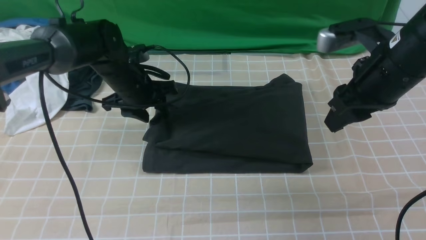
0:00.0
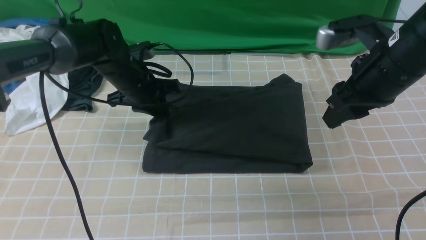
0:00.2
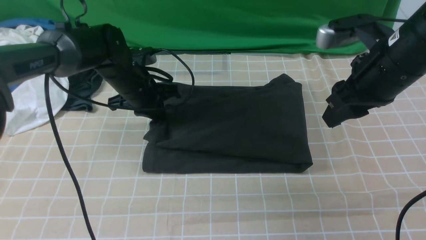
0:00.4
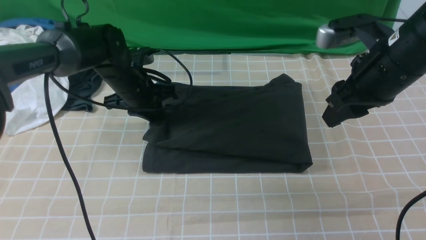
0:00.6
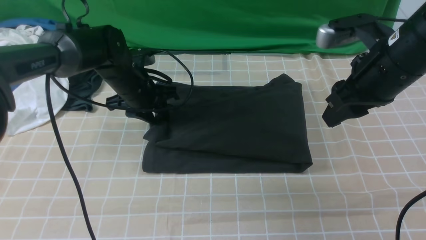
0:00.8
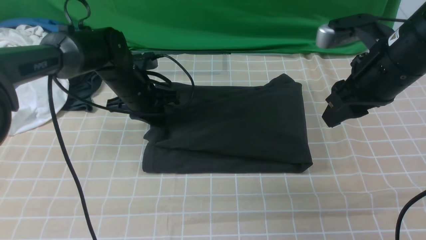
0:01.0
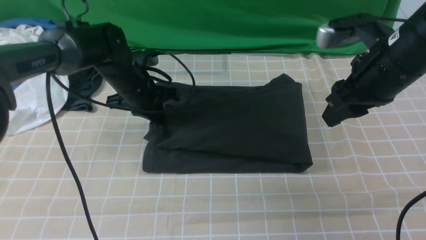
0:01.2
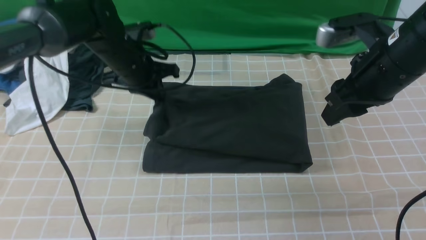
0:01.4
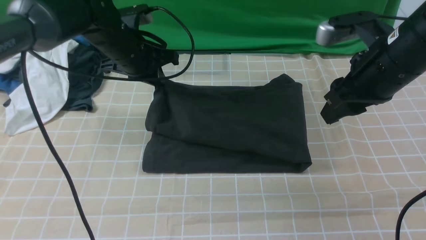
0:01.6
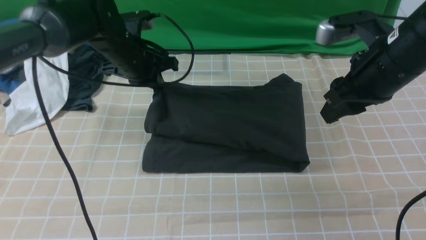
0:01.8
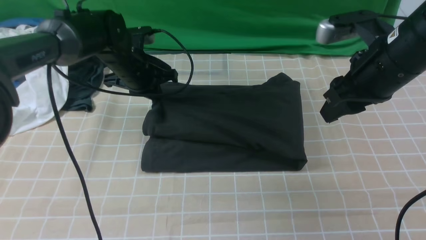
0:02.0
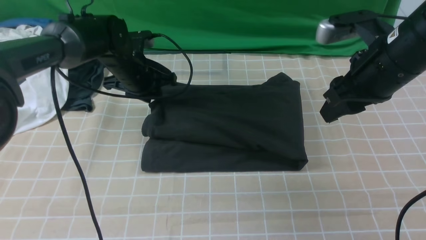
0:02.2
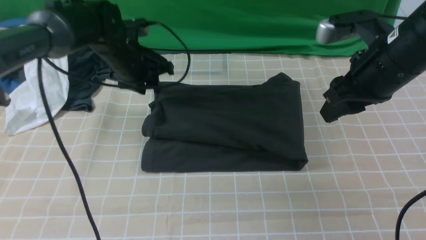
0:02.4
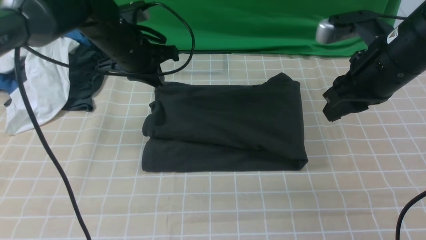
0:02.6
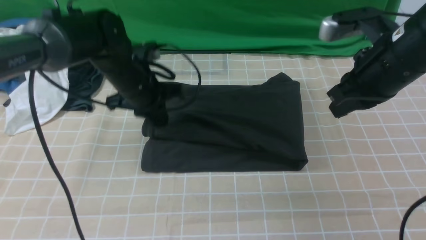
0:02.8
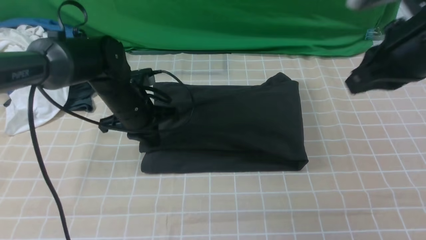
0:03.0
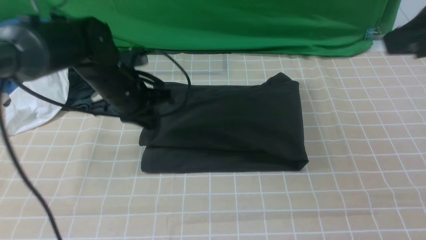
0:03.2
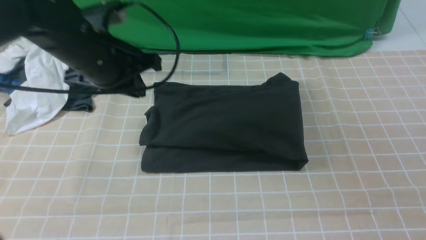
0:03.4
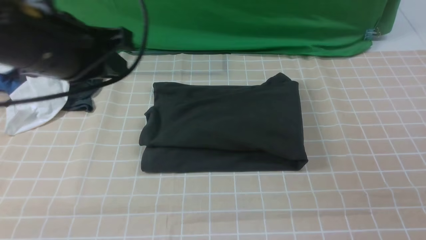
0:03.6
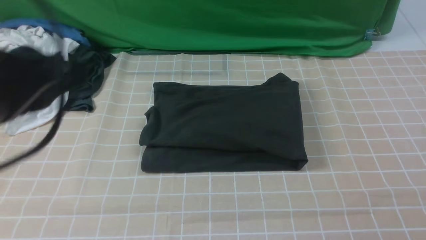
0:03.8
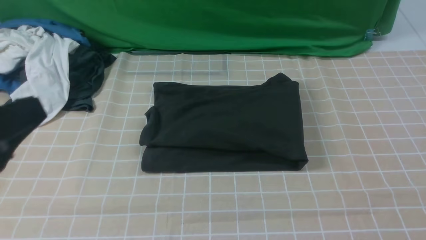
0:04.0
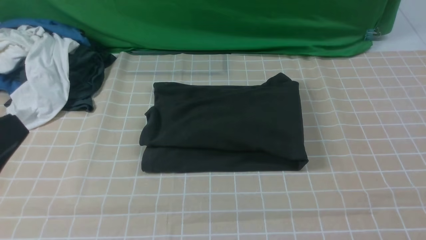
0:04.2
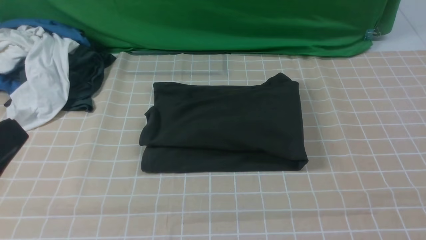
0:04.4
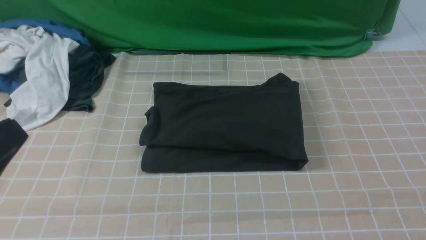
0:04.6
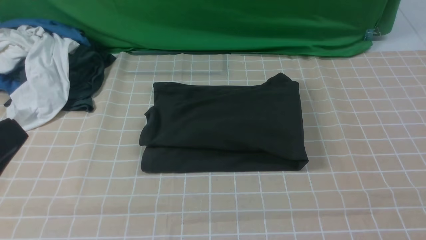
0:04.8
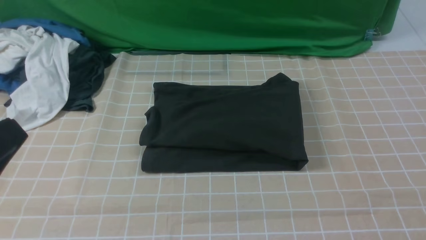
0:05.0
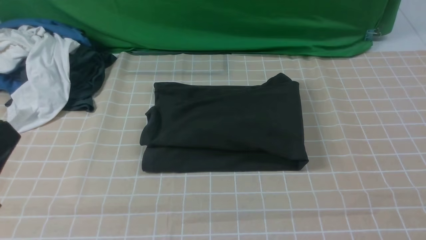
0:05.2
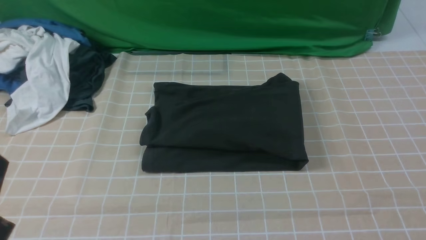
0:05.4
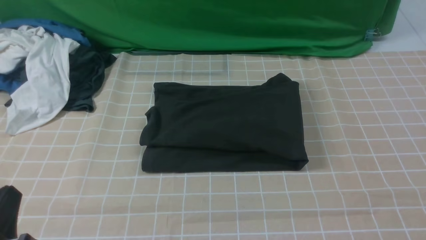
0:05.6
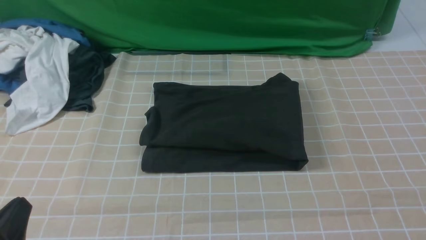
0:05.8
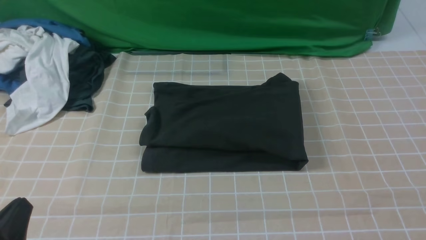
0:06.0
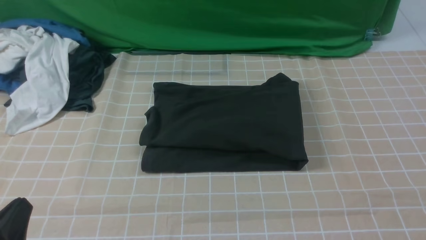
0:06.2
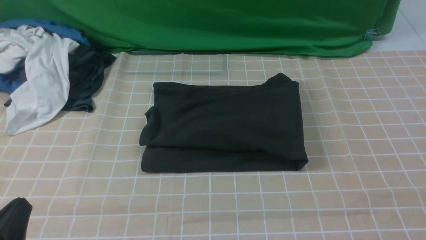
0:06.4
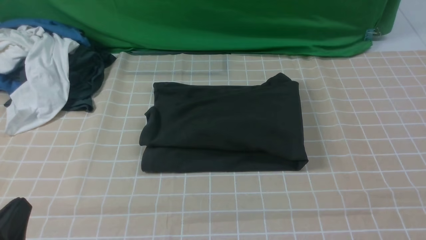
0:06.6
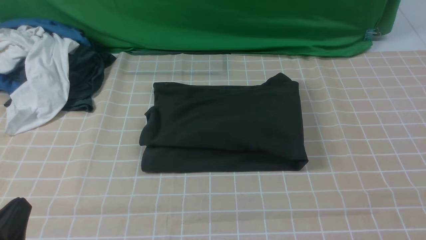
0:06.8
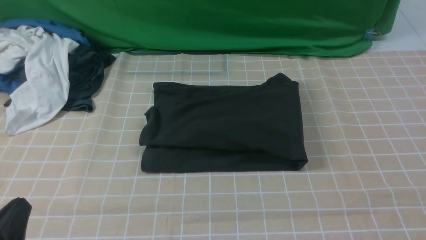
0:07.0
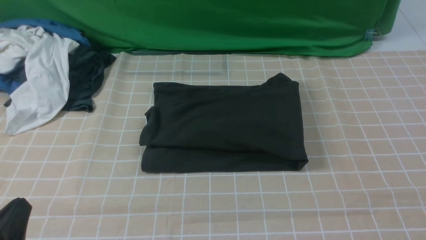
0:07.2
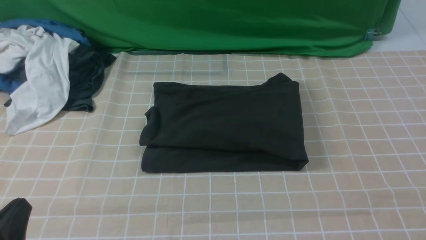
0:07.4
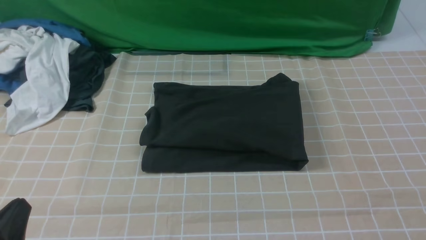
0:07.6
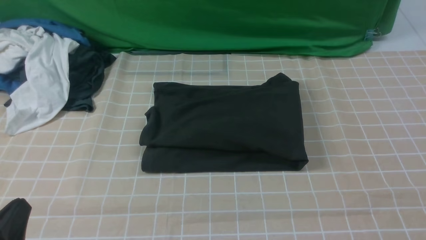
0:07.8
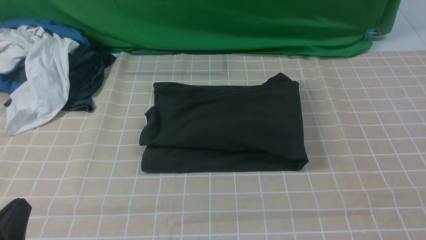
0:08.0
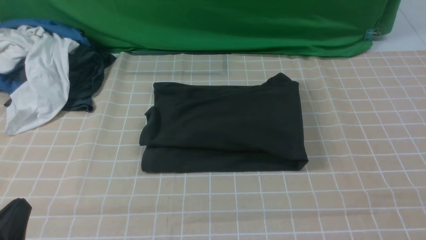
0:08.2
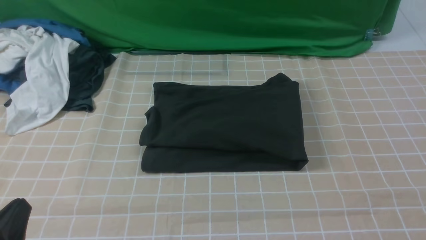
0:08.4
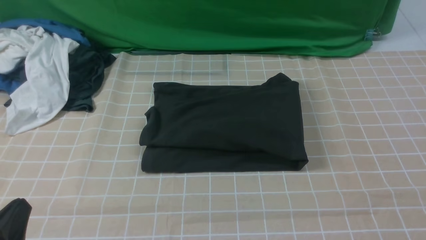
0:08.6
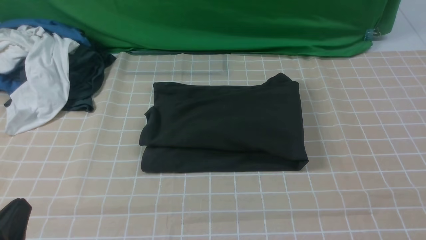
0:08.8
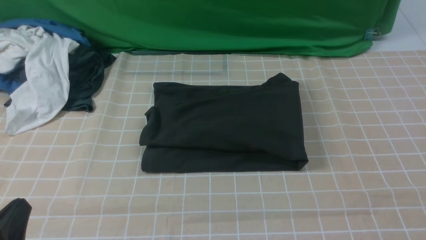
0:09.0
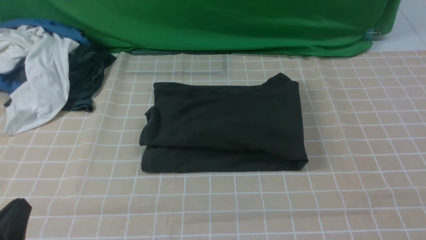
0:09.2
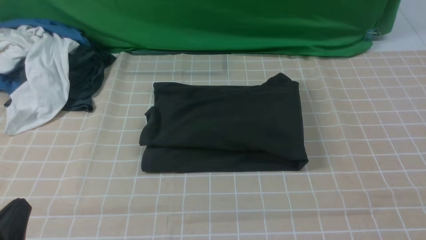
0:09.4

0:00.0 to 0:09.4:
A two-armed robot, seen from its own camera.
0:00.0 to 0:01.6: The left gripper closes.
0:01.6 to 0:03.2: The left gripper travels backward by some 10 cm, and opens, then closes again. The right gripper moves upward and backward, some 15 cm, and closes.
0:03.2 to 0:04.8: Both grippers travel together backward, roughly 25 cm.
0:04.8 to 0:06.2: The left gripper heads downward, covering some 15 cm.
0:07.8 to 0:09.4: Both grippers stay about where they are.
